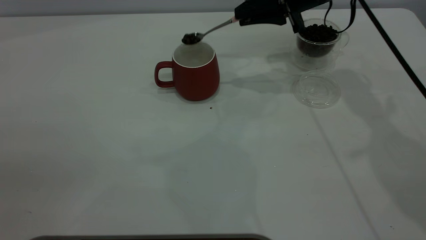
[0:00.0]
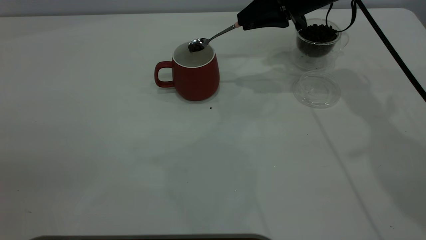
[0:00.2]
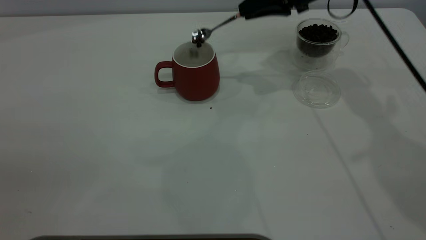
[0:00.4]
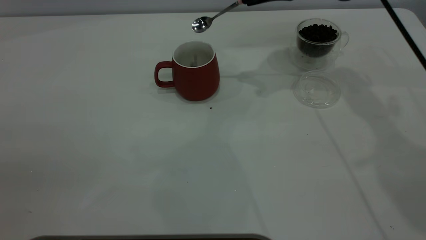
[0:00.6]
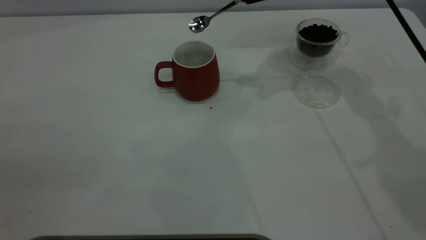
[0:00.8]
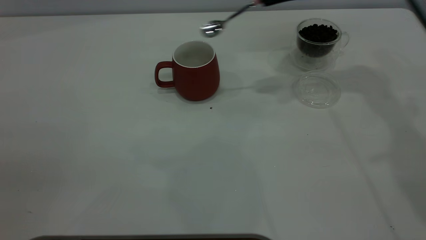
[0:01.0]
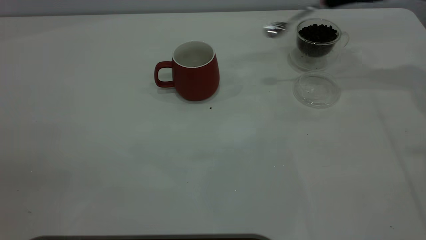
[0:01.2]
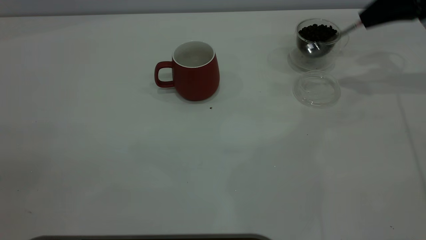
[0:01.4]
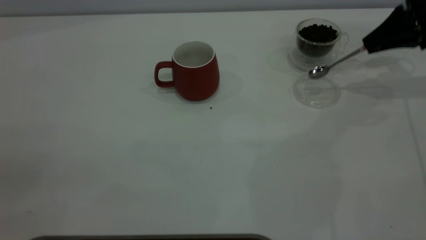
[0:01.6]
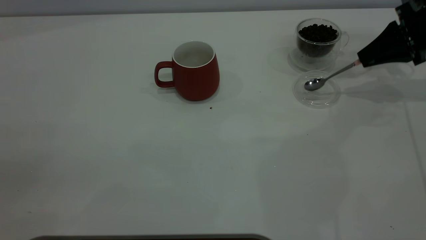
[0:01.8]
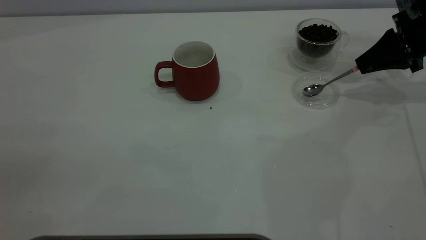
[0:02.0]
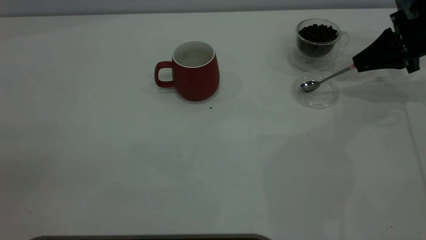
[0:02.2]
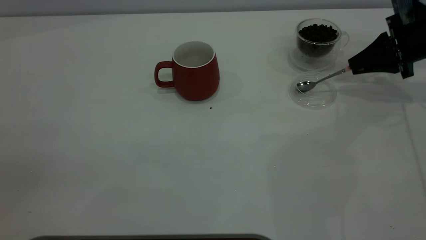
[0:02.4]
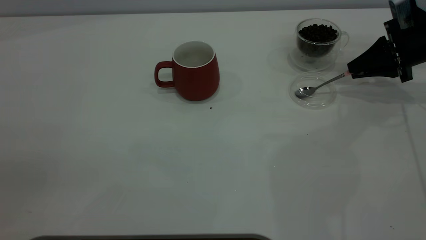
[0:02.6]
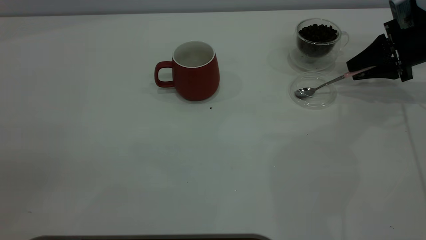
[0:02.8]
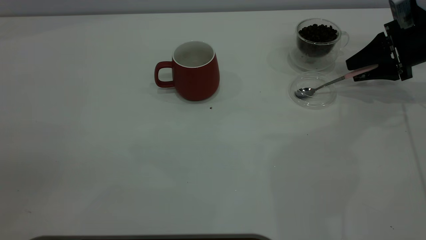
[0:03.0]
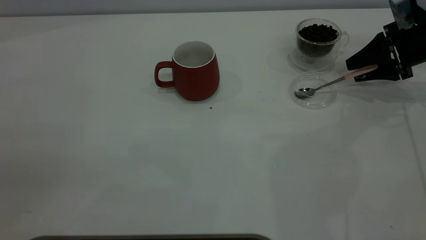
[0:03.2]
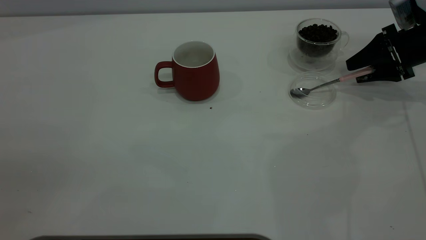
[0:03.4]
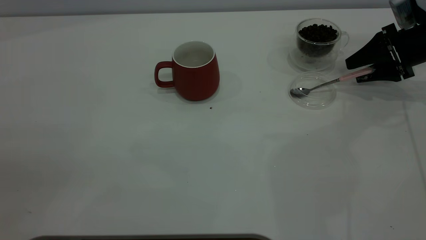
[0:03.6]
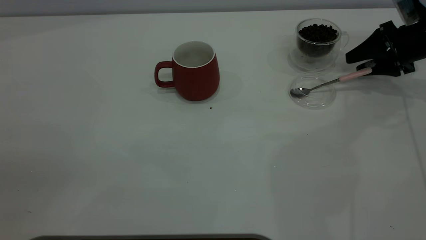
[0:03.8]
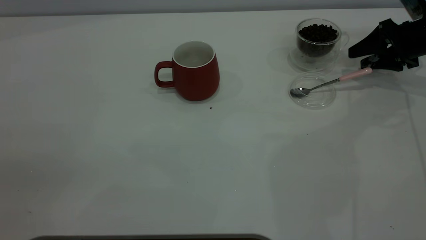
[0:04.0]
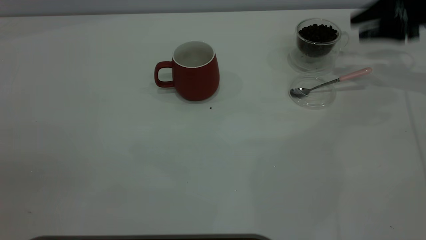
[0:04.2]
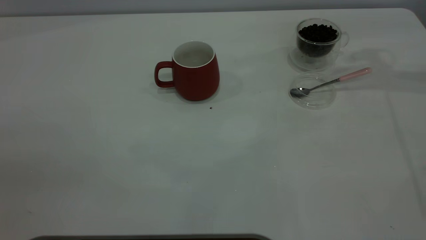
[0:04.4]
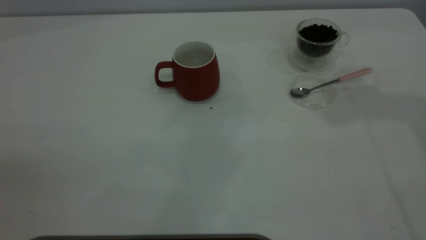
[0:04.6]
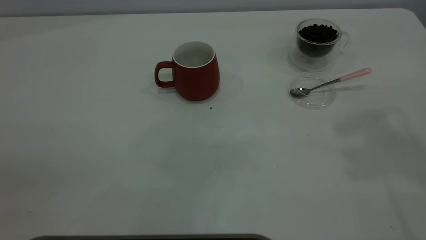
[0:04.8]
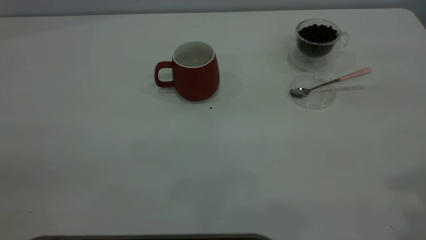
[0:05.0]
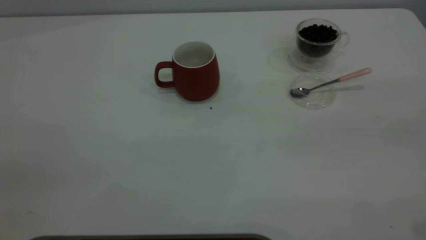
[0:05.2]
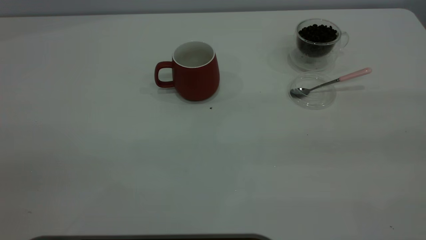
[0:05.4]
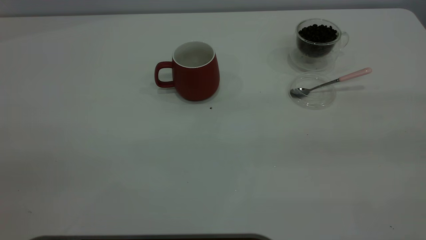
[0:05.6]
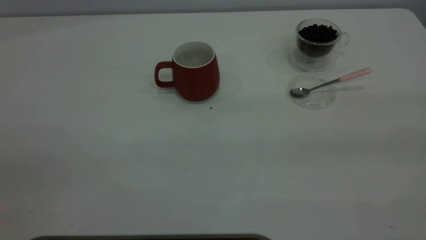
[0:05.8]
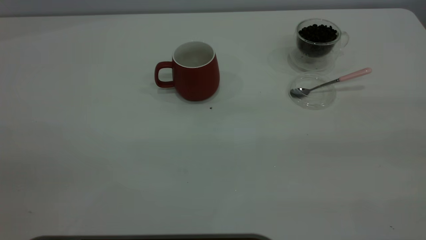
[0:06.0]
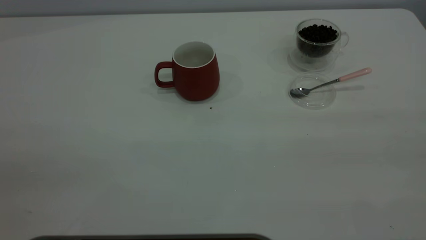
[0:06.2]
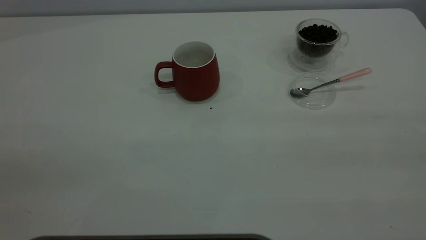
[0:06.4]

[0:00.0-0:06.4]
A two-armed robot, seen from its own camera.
Task of the whole recording: the left gripper place the red cup in the center of the table, the right gripper take the pink spoon from the cup lid and scoop out the coffee beans from the coffee cup and put them into the red cup, the right gripper put the spoon back into the cup lid.
Step, 0:01.0 to 0:04.0: Place the spoon back in its original place.
0:00.0 to 0:01.6: The right gripper moves to the right, approximately 20 cm.
0:01.6 to 0:03.2: The right gripper shifts roughly 5 cm downward, and opens.
0:03.2 to 0:04.8: The right gripper heads upward and backward, covering approximately 40 cm.
